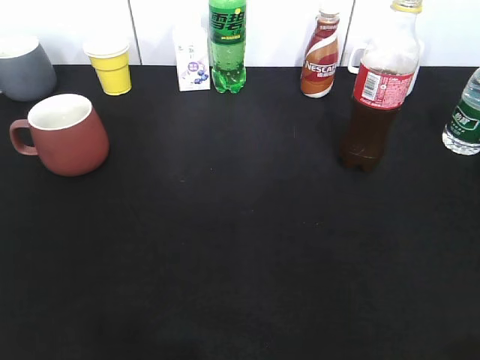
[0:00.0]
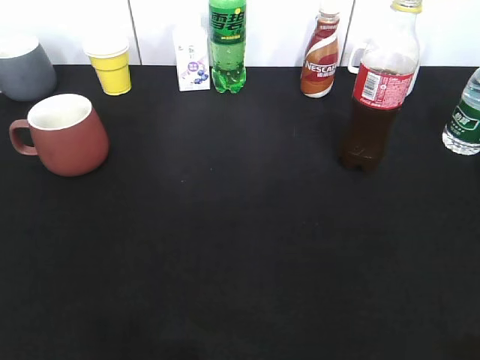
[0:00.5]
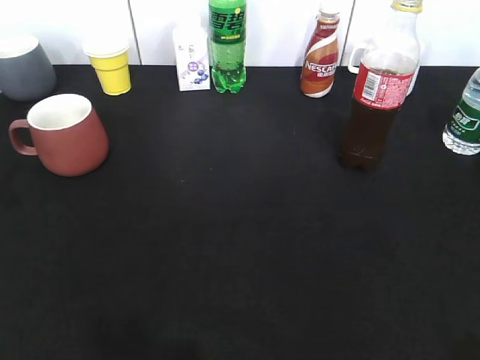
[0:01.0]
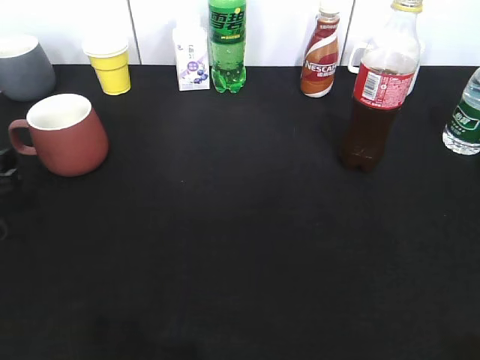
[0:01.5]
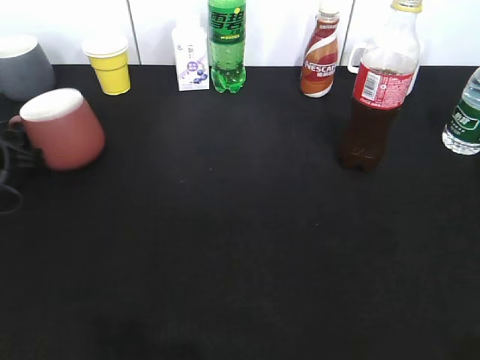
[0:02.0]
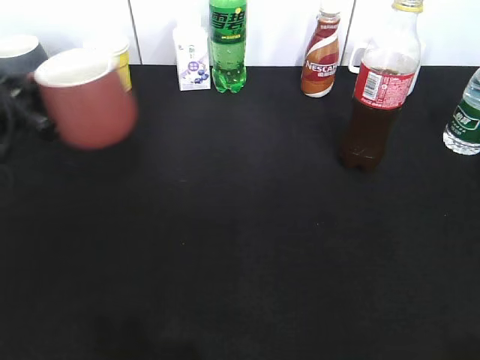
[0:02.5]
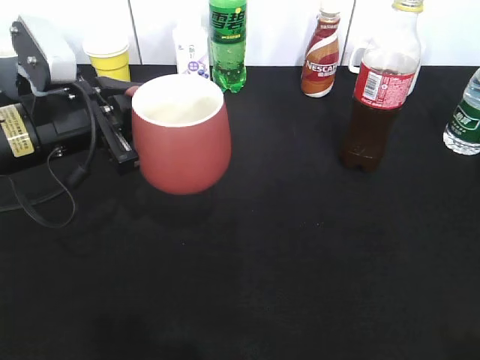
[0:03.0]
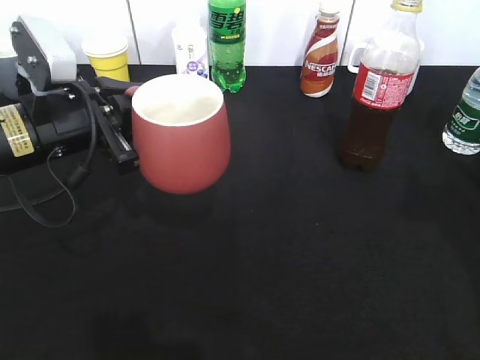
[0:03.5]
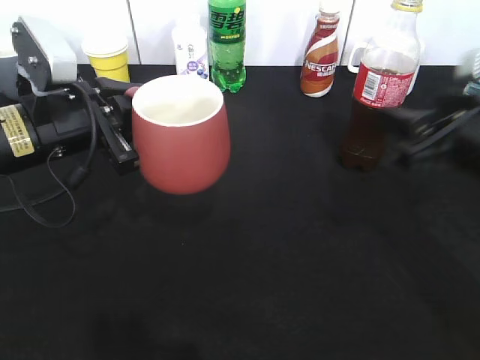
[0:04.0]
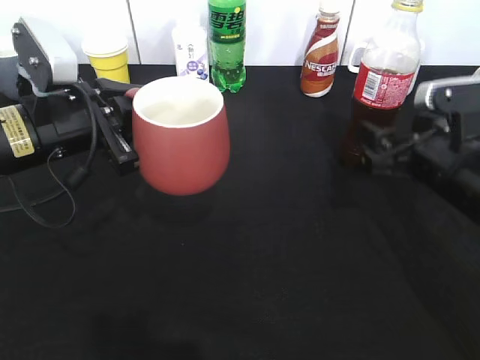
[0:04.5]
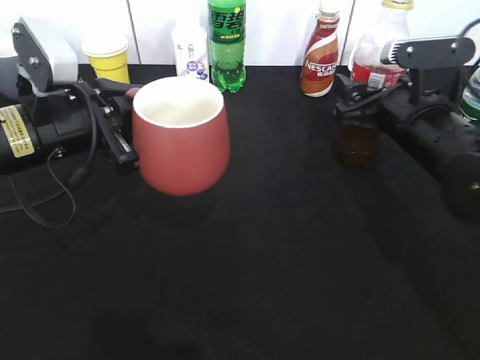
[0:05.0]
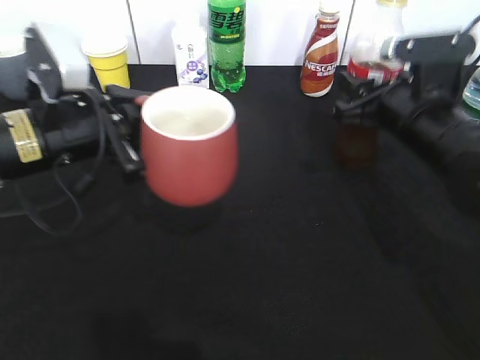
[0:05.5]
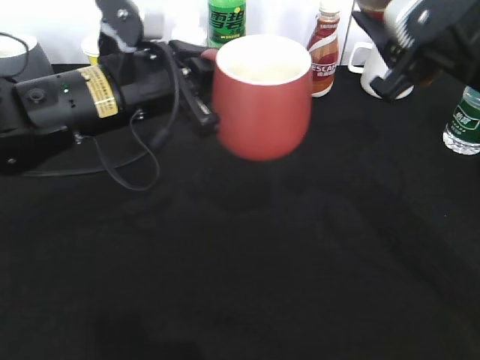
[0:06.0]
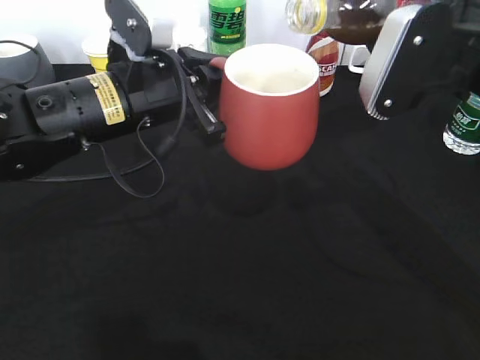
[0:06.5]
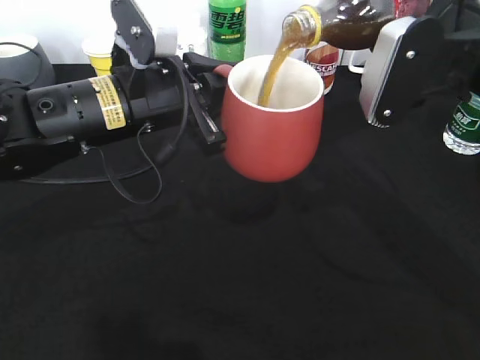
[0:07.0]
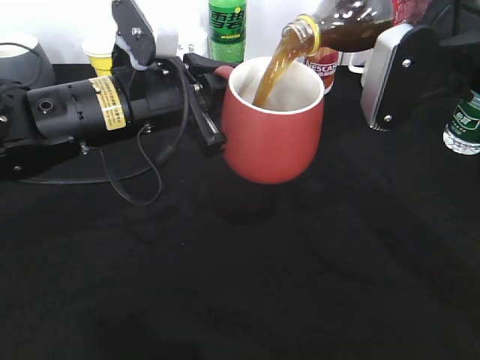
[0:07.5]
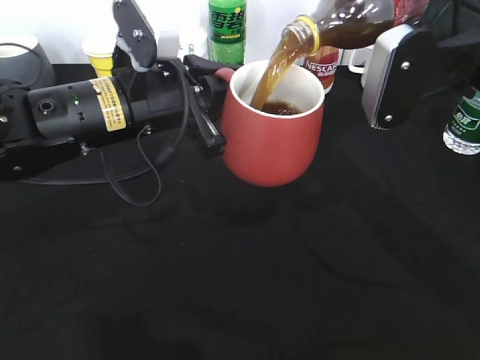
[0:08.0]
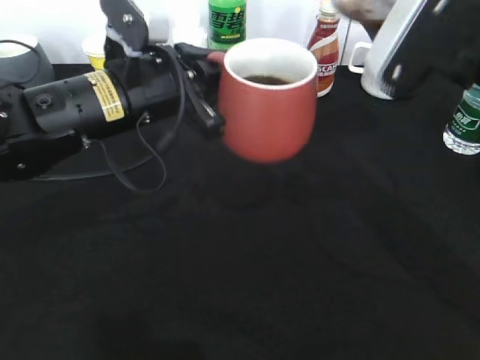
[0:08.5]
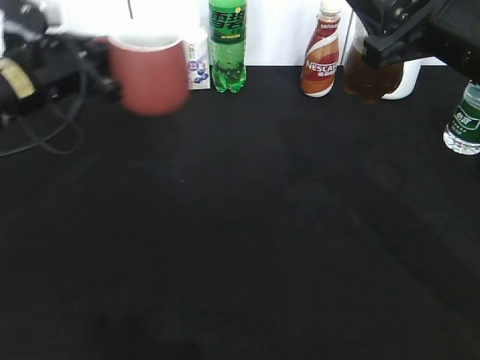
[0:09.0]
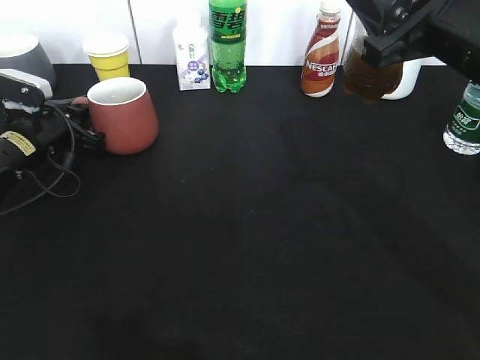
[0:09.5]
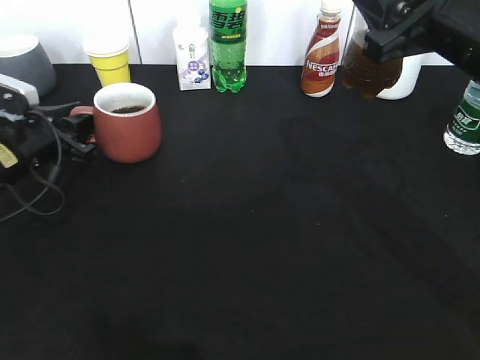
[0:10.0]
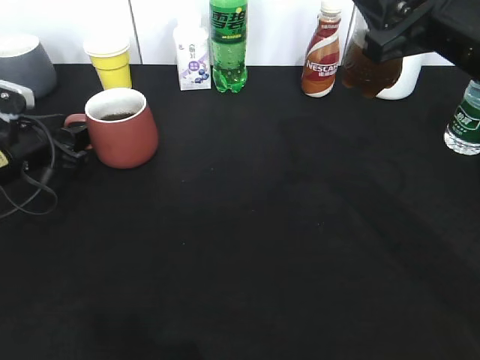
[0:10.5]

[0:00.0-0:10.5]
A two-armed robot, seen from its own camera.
Step, 0:02.0 to 0:03.5: Lift the red cup with left gripper.
Step, 0:04.0 to 0:05.0: Grasp the bottle with cola with right gripper.
Step, 0:05.5 to 0:08.0: Pour the cola from bottle to cup with right gripper.
0:00.0 to 0:02.0: The left gripper goes roughly 40 cm forward and downward, and opens and closes again.
0:02.0 to 0:04.0: The left gripper is displaced to the right and upward by approximately 20 cm, and closes, while the right gripper goes about 20 cm forward.
0:04.0 to 0:06.5: The right gripper is displaced upward by some 5 cm, and closes up. The left gripper is displaced to the right by roughly 10 cm.
0:06.5 to 0:08.5: The grippers stay close to where they were, moving slightly.
0:08.5 to 0:10.5: The left gripper moves to the left and downward, about 20 cm, and opens up.

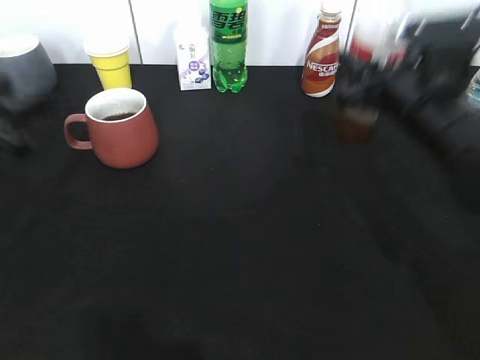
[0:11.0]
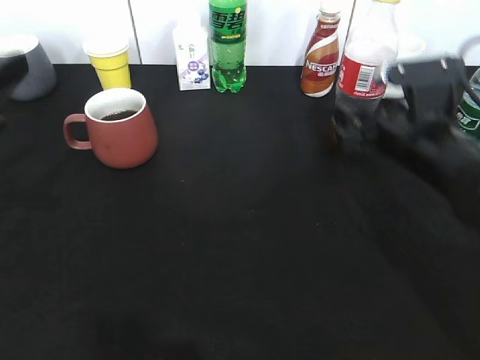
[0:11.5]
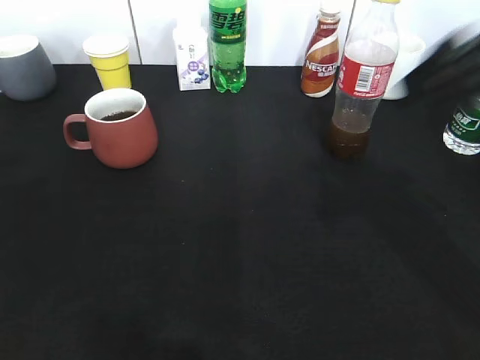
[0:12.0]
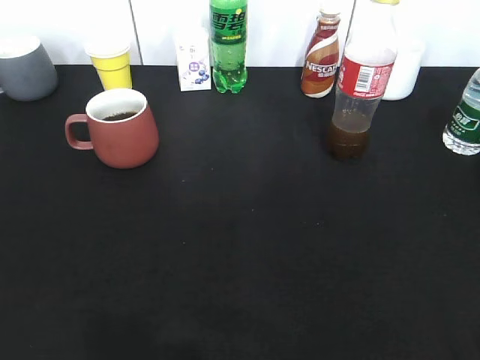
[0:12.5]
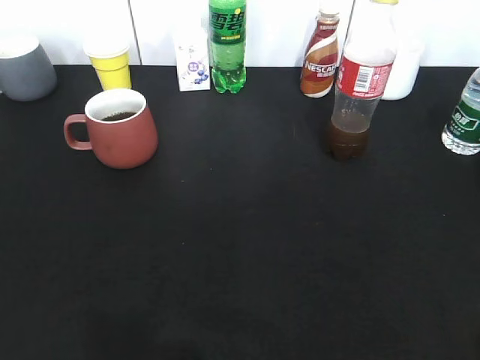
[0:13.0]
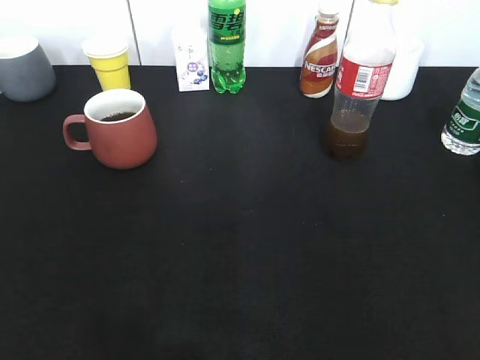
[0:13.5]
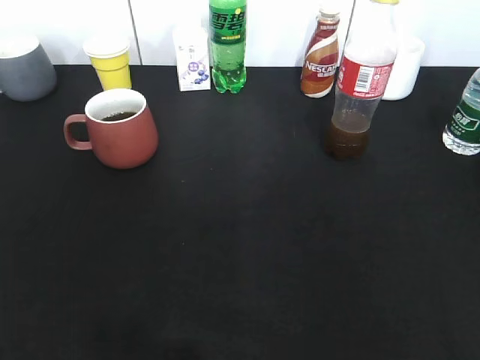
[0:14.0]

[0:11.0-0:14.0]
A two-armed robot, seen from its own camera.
0:11.0 to 0:12.5: The right gripper moves backward and to the right, approximately 35 cm, and opens. Meanwhile the left gripper travels backward by approximately 25 cm.

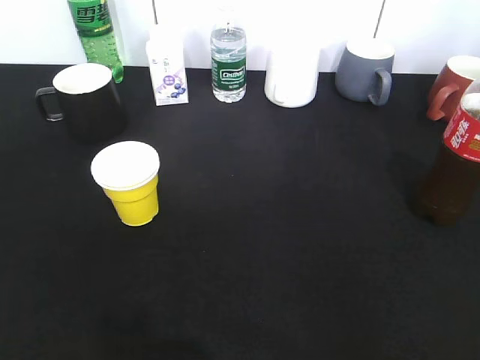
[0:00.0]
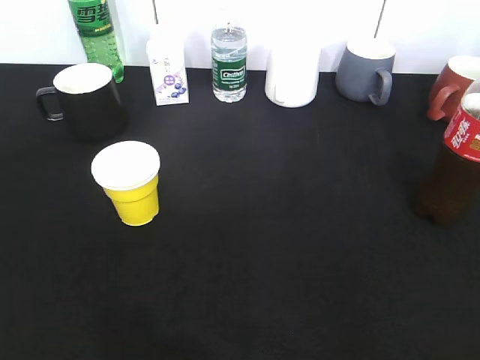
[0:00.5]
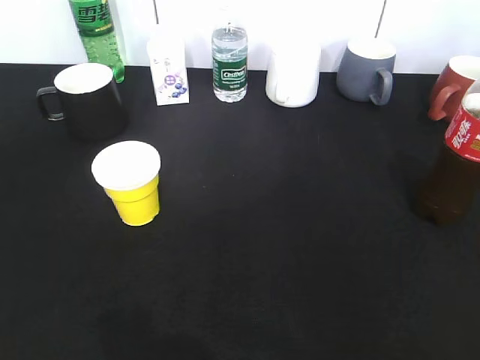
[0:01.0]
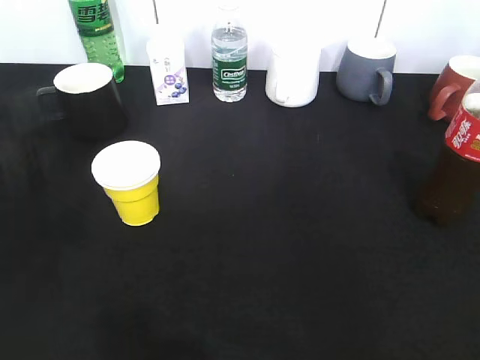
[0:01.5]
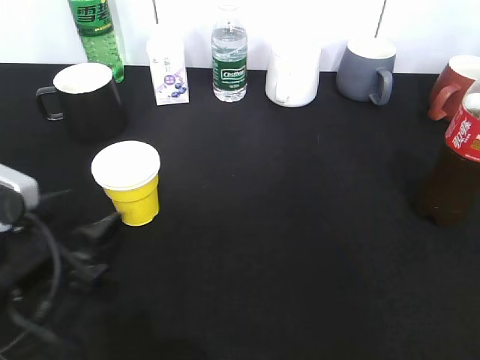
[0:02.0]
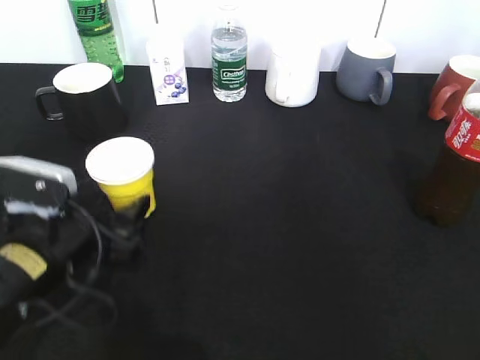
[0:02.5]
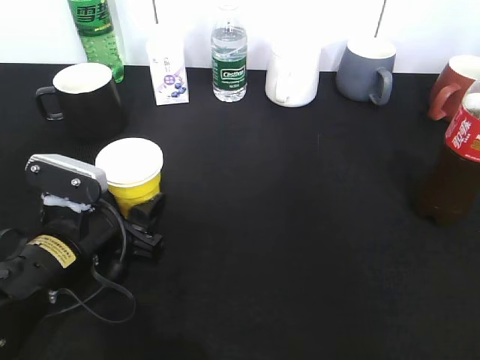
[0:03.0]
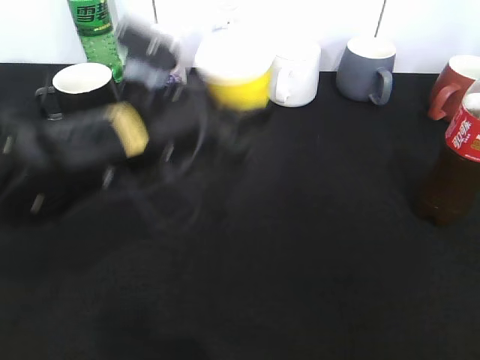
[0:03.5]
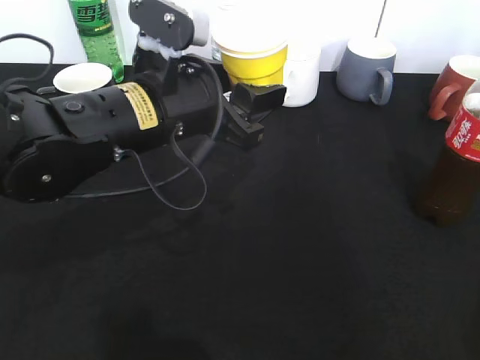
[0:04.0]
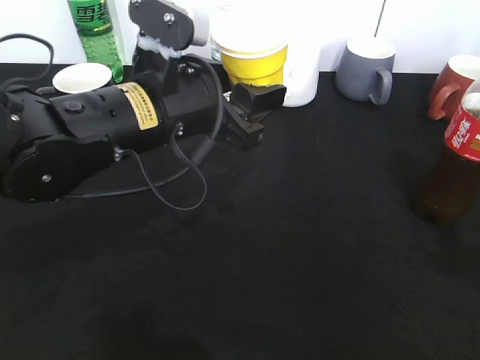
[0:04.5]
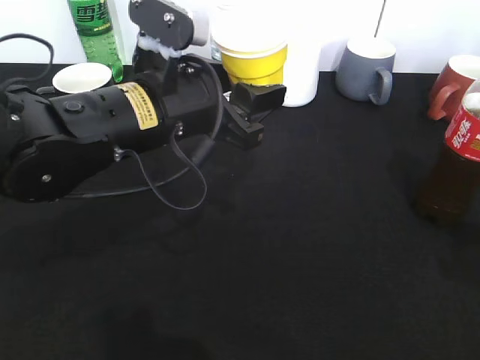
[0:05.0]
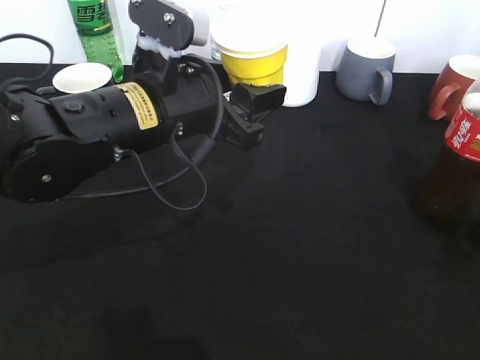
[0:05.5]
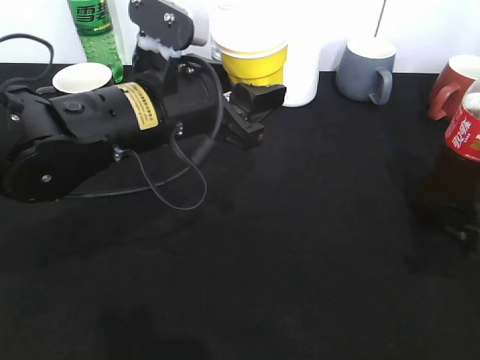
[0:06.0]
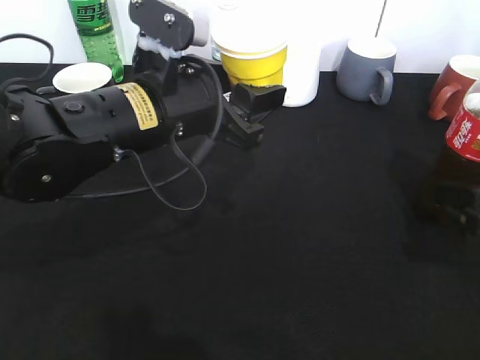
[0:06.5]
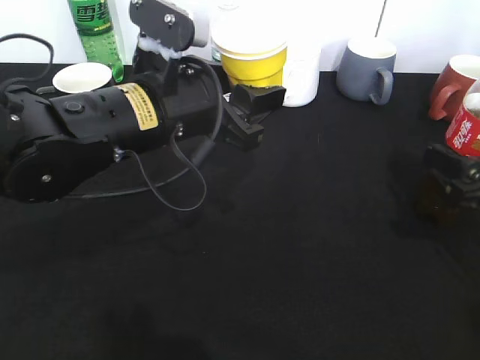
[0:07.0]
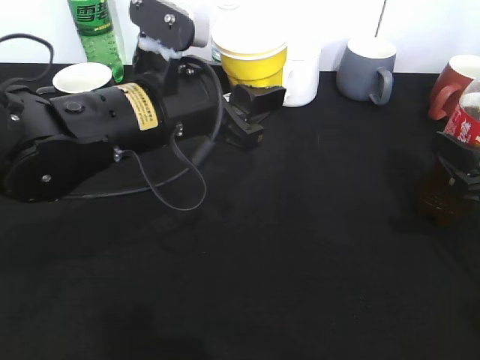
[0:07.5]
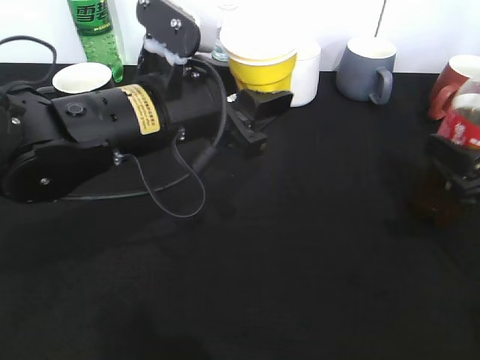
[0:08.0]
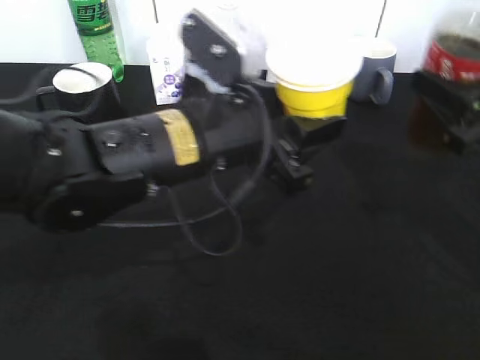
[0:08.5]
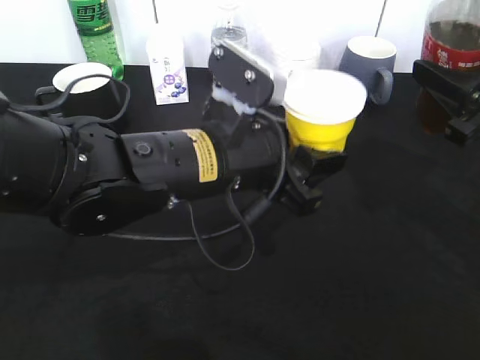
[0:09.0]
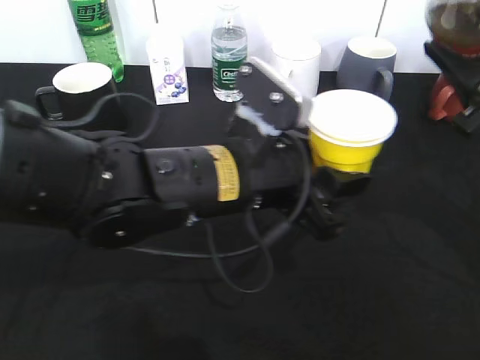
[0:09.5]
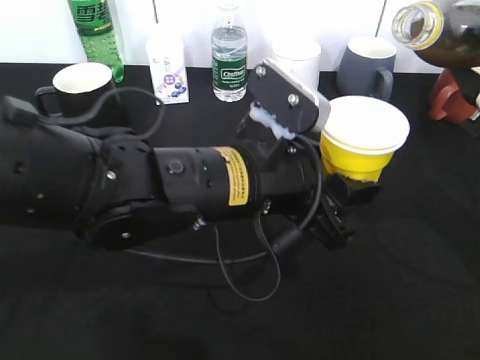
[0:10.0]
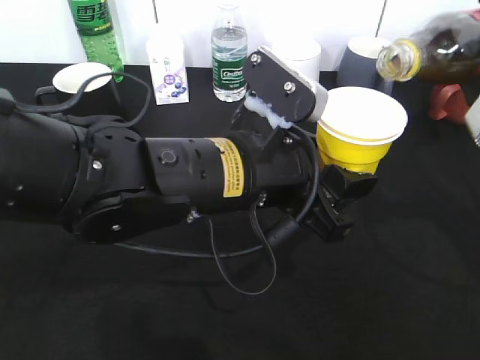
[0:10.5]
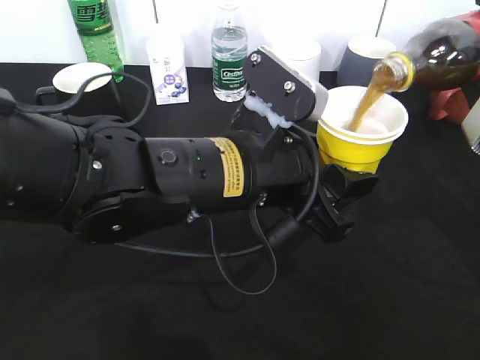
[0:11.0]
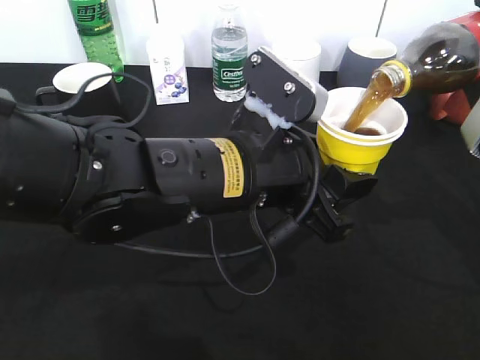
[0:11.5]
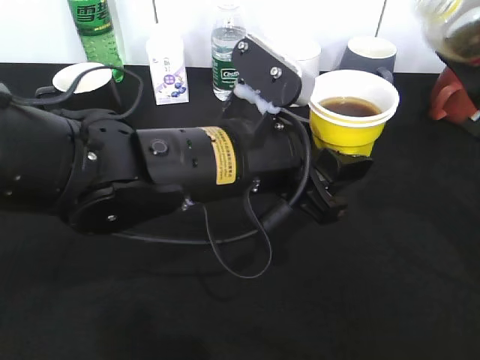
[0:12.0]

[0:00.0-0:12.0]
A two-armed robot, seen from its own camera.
Step, 0:01.0 to 0:03.0: Grasp the yellow paper cup with left gripper.
Step, 0:08.0 to 0:11.5: Pour the cola from bottle to cup with right gripper.
0:00.0 to 0:02.0: The left gripper heads forward, downward and to the right, covering approximately 25 cm.
0:02.0 to 0:04.0: The left gripper is displaced to the right, forward and upward by some 20 cm, and closes up.
0:06.0 to 0:08.0: The right gripper closes.
0:08.0 to 0:10.0: The right gripper travels upward by some 10 cm. Meanwhile the left gripper moves to the right, roughly 5 cm.
